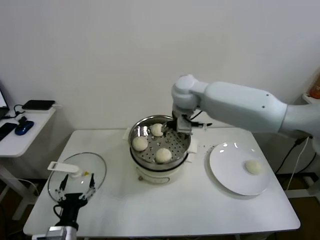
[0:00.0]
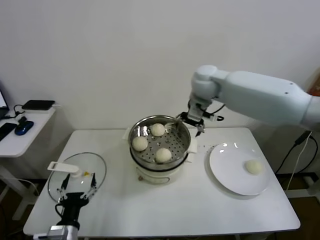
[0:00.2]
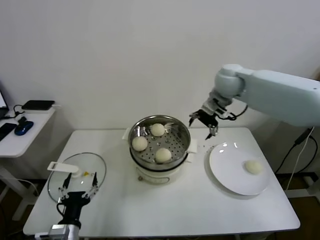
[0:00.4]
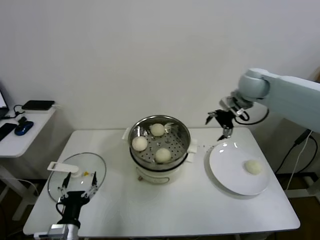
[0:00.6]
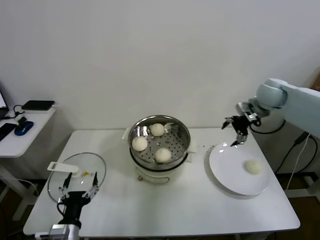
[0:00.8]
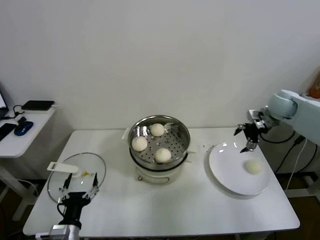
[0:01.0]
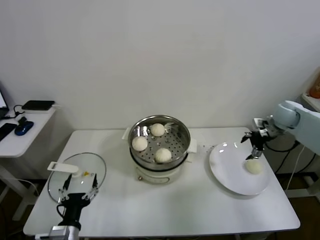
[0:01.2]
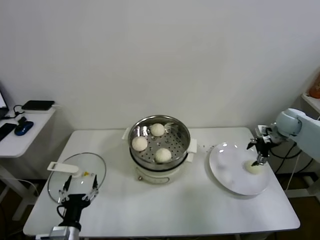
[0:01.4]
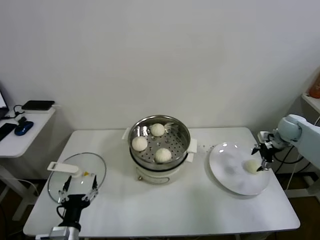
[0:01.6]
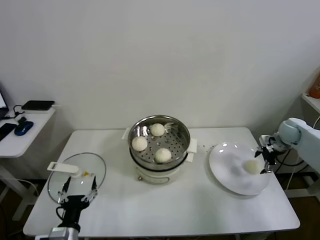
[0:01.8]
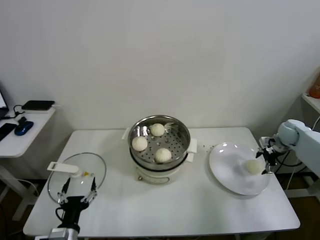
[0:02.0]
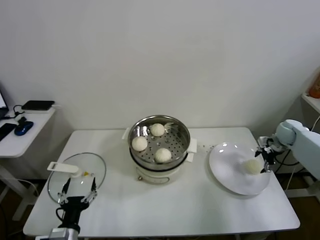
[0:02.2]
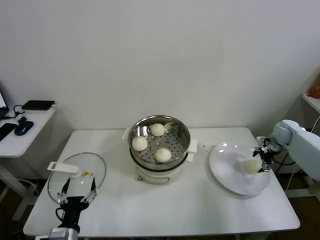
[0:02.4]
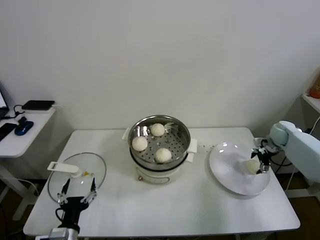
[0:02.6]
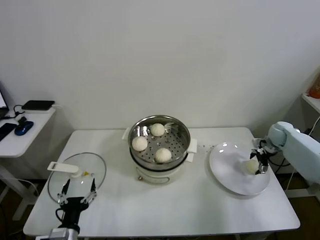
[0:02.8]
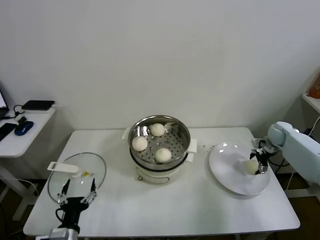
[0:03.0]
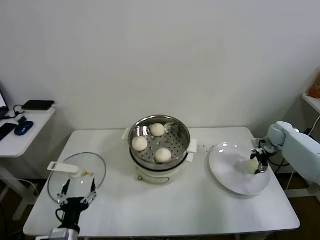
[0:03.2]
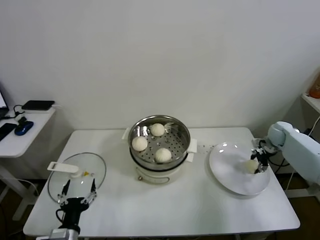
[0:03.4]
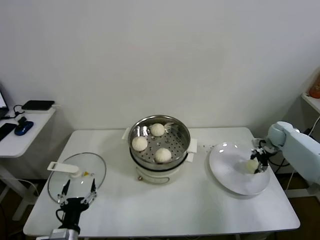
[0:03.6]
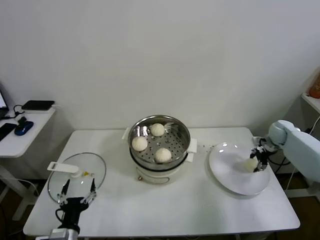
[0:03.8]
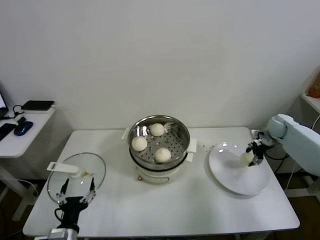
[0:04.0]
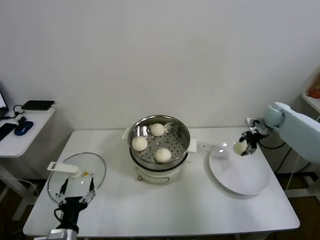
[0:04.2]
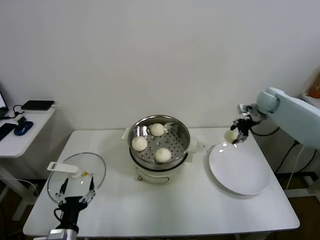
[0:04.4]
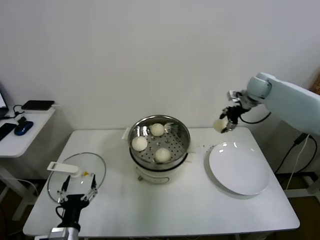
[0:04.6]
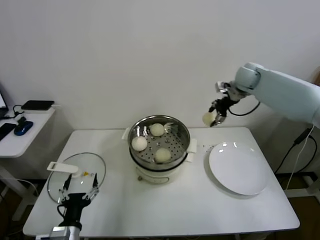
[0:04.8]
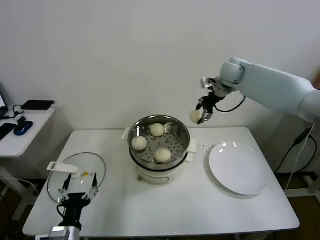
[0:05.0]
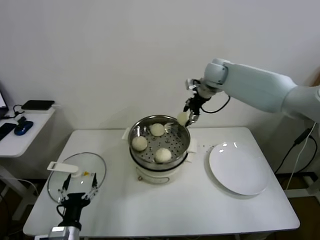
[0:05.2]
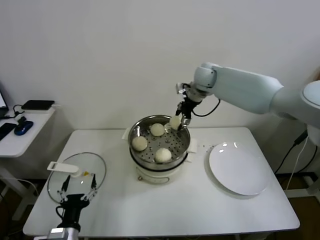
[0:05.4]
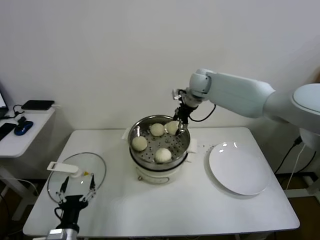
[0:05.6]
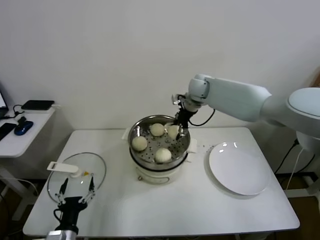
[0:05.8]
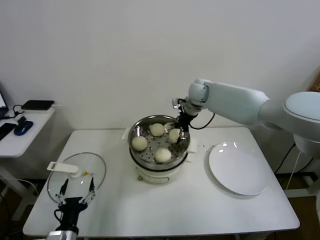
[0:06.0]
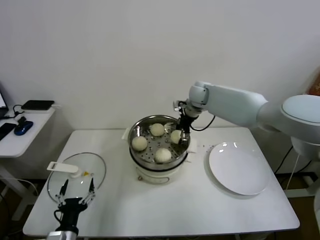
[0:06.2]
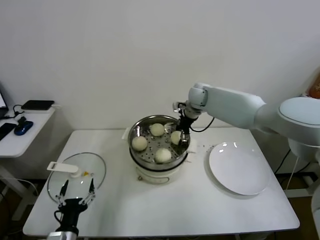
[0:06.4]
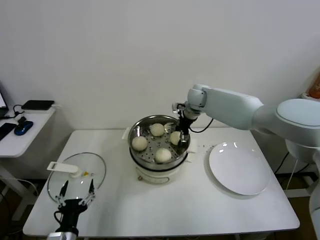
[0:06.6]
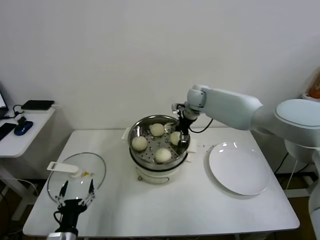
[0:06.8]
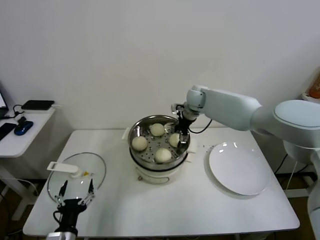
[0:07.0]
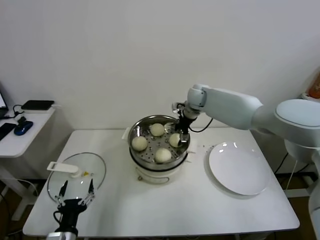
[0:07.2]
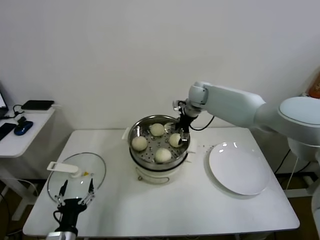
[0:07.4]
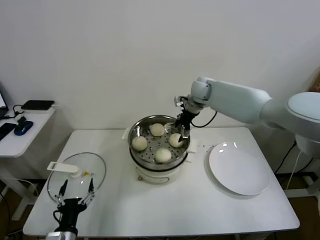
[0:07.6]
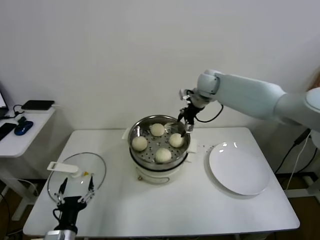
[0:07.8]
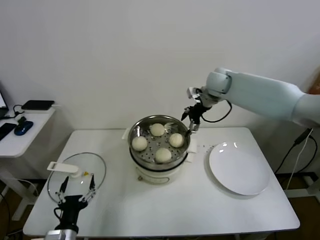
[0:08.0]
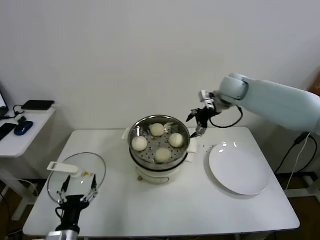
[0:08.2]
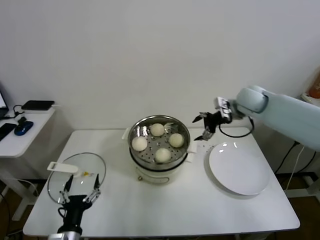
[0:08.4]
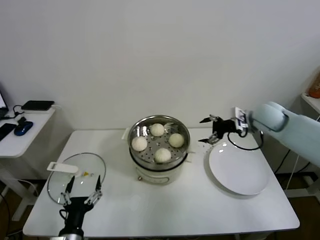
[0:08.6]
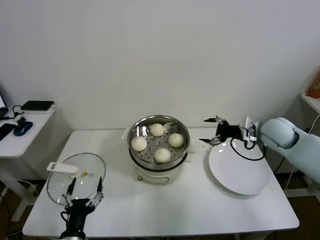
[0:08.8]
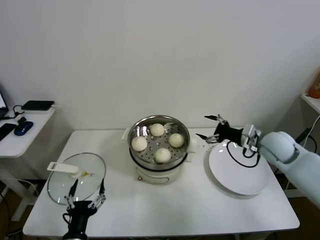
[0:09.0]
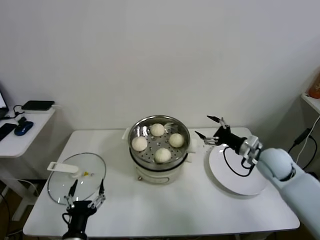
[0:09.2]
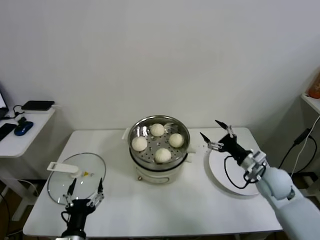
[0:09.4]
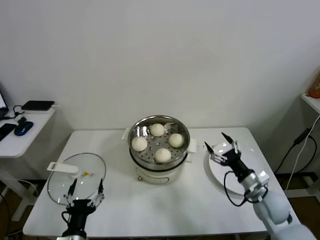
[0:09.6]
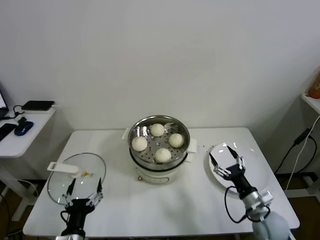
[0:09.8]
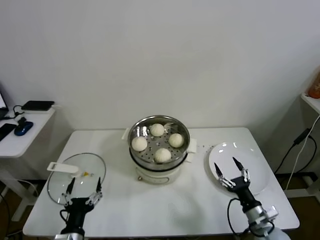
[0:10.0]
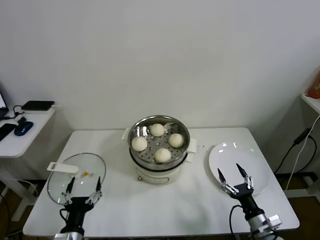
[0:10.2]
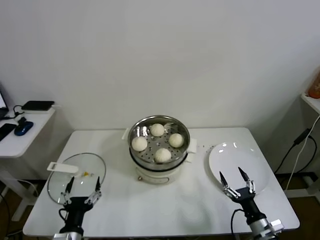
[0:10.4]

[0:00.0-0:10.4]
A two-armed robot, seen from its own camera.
Task of the whole recording: take steamed baozi put them in steamer.
Step, 0:00.0 to 0:03.2: Grasp the baozi in the plate with right gripper.
Step, 0:03.4 to 0:07.4: Place the baozi on the steamer with right gripper.
0:00.0 to 0:01.4: The right gripper heads to the right, covering roughly 40 cm.
0:01.4 to 0:03.0: The right gripper shifts some 10 cm downward.
0:03.0 to 0:04.4: The right gripper moves upward and to the left, approximately 15 cm, and closes its fingers.
0:04.4 to 0:06.0: The right gripper is displaced to the left by roughly 25 cm.
0:06.0 to 0:07.4: The right gripper opens up.
0:07.4 to 0:09.0: The right gripper heads to the right and backward, covering approximately 30 cm.
0:09.0 to 0:10.4: The right gripper travels backward and downward by approximately 35 cm.

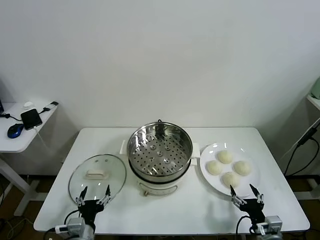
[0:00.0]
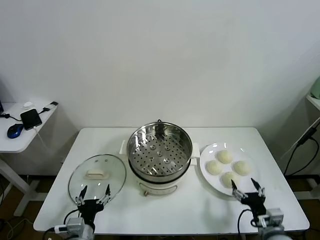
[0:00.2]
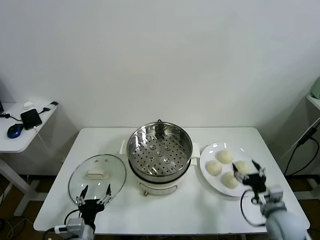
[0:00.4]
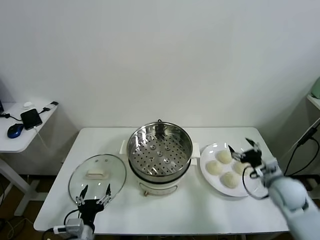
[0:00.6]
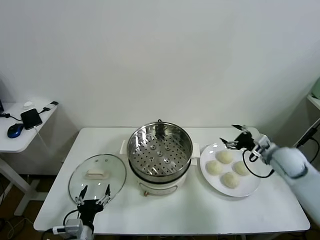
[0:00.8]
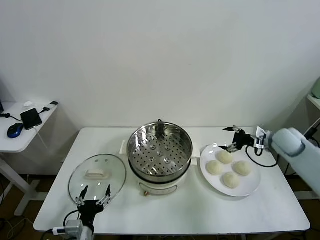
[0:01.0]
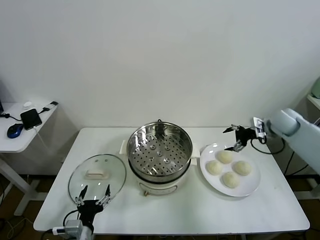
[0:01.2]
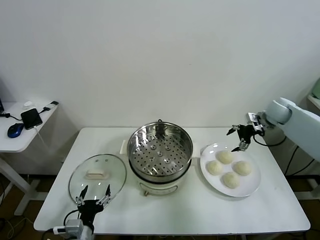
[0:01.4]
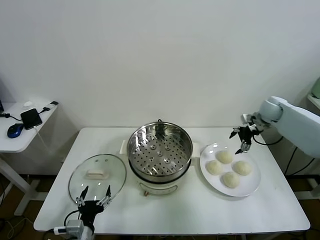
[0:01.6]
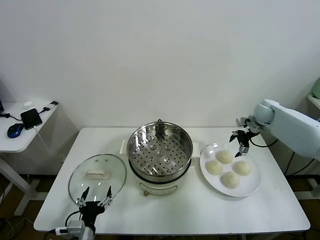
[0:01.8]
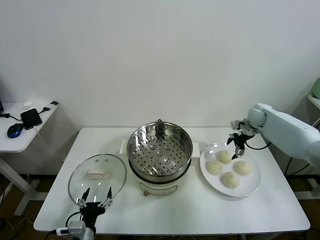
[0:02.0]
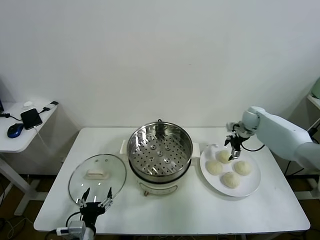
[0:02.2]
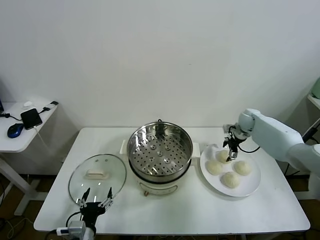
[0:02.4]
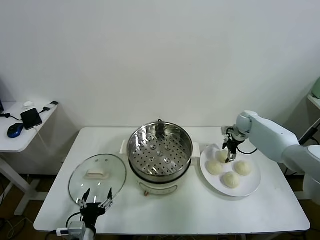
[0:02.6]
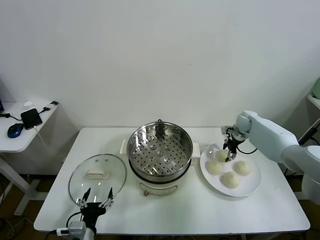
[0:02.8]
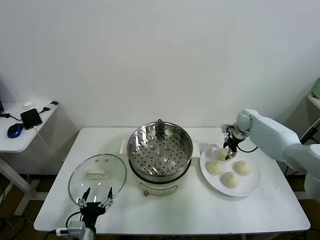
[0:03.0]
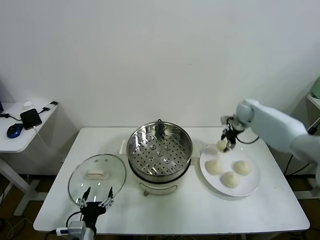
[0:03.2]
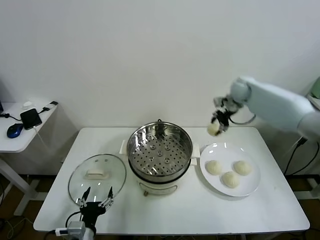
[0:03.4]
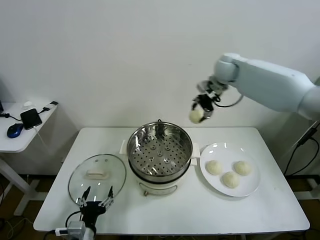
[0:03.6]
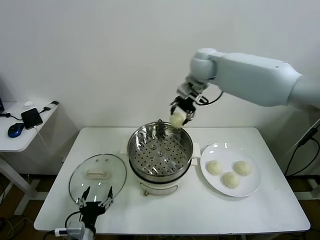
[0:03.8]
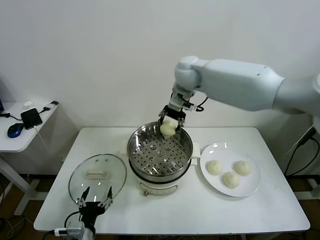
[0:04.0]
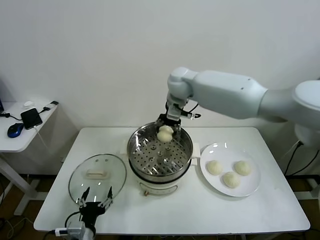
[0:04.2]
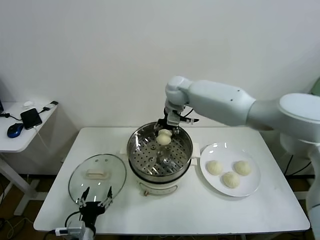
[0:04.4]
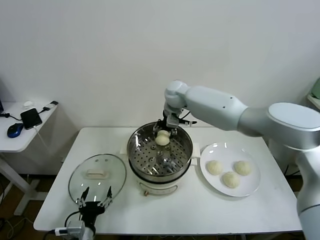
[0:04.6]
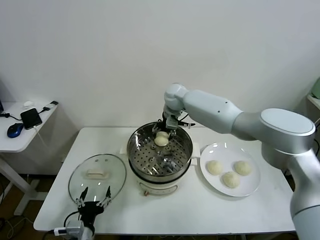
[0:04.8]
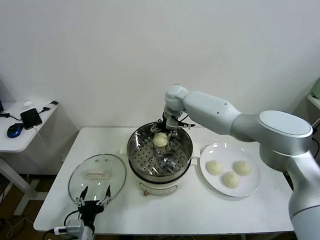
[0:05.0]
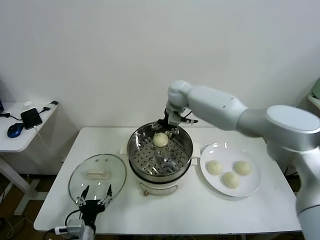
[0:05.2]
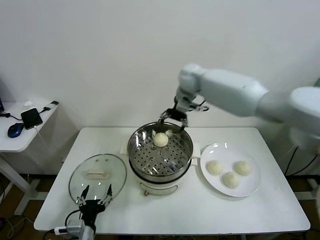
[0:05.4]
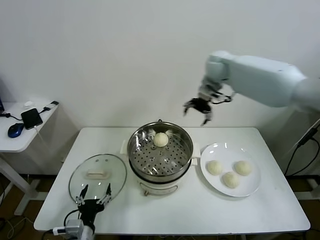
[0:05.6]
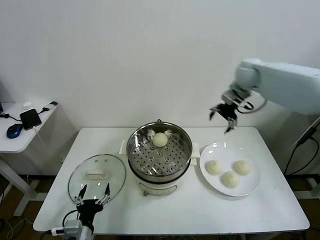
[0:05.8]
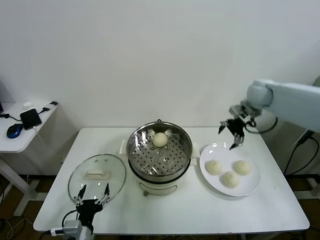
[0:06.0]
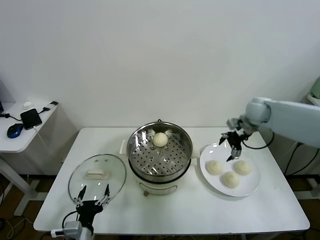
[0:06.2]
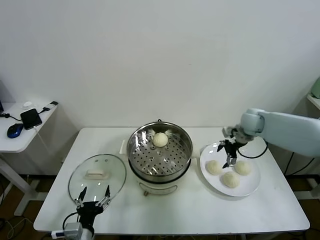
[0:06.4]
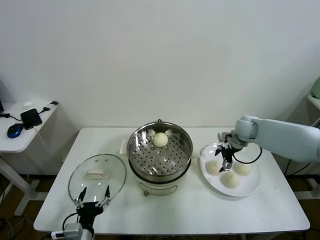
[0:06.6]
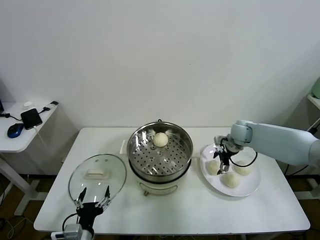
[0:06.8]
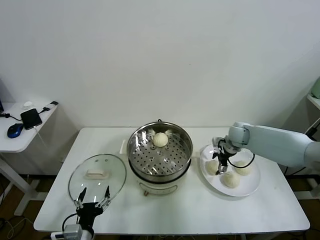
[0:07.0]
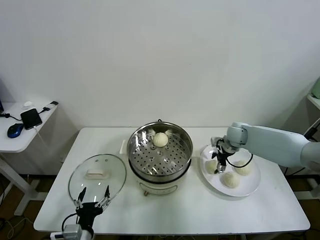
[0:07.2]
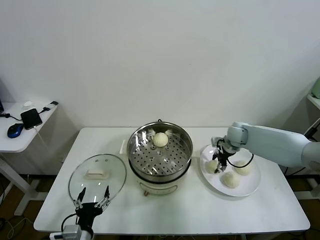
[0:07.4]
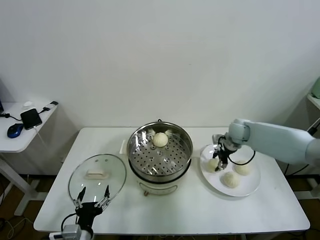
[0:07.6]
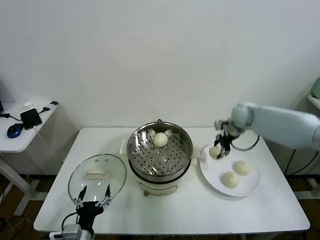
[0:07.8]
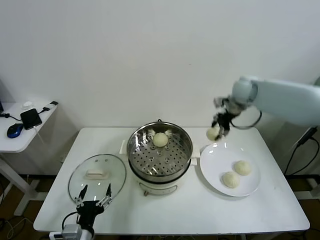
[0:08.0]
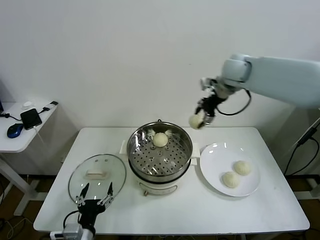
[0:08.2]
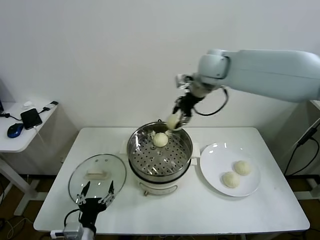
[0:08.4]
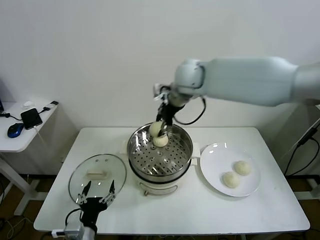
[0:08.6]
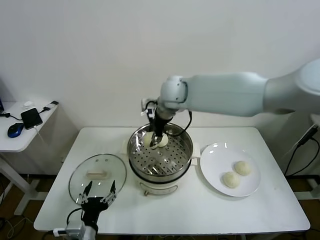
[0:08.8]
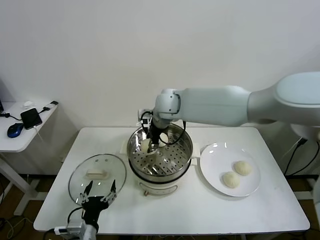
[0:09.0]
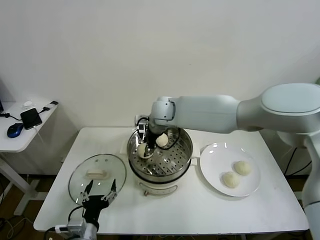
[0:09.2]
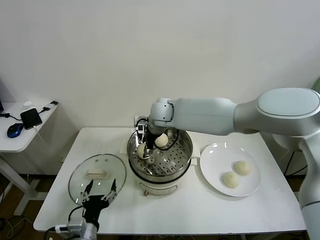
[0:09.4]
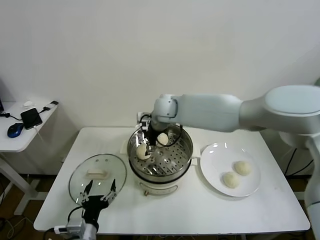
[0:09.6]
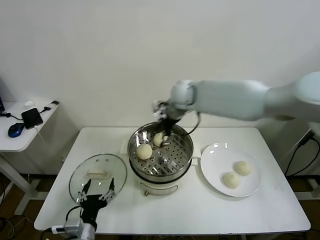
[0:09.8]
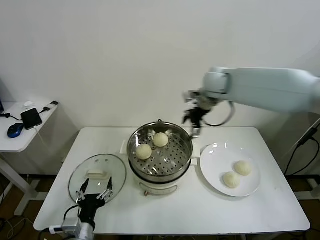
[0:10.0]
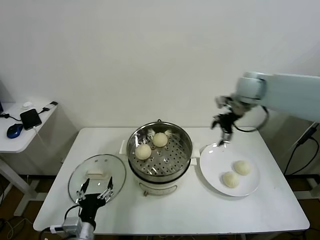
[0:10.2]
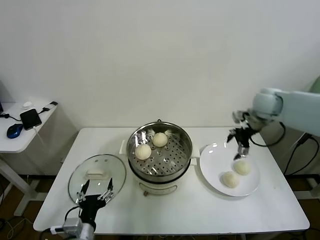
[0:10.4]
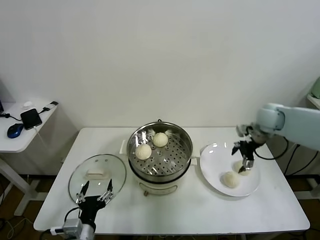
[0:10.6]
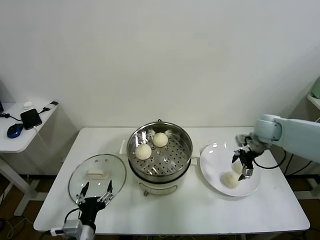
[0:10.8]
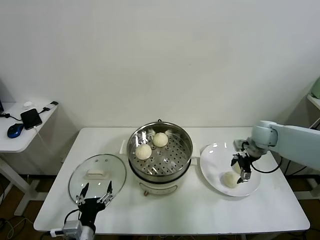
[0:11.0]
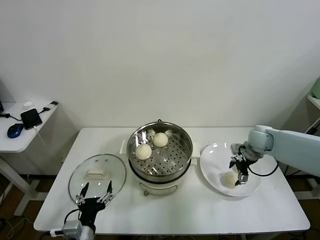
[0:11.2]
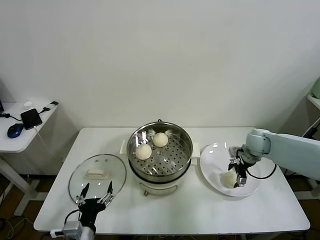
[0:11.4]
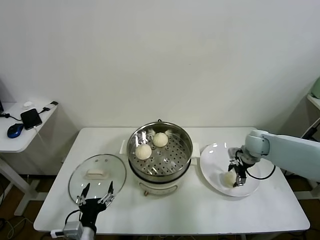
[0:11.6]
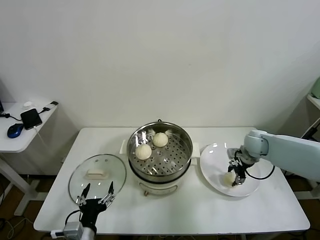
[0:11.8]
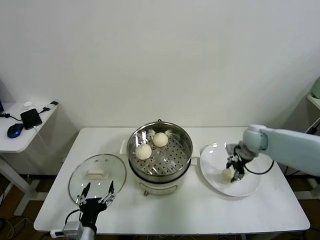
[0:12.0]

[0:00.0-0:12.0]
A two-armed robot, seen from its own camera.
Task of the whole recording: take steamed baozi put them in steamer.
Step, 0:00.0 to 0:02.8: Grasp the baozi in the plate with right gripper.
Step, 0:03.0 to 0:05.0: Place the baozi on the steamer with right gripper.
Step, 0:05.2 to 0:07.2: Grasp the baozi in the plate with right gripper.
Step, 0:07.6 to 0:09.4: Place the baozi on the steamer with right gripper.
Step, 0:09.6 to 0:11.8: Grasp the baozi in the plate with right gripper.
0:01.6 to 0:03.0: The right gripper heads to the left, covering approximately 5 cm, and closes up.
0:03.0 to 0:04.4: The right gripper travels to the left and upward by some 35 cm.
0:04.4 to 0:06.0: The right gripper shifts about 30 cm to the right, and opens its fingers.
0:06.0 to 0:07.6: The right gripper travels downward by about 10 cm, and closes up.
0:07.6 to 0:09.0: The right gripper moves to the left and upward, approximately 30 cm.
0:09.0 to 0:10.4: The right gripper moves to the right, some 35 cm, and opens up.
0:10.4 to 0:12.0: The right gripper is displaced downward by approximately 10 cm, and closes up.
